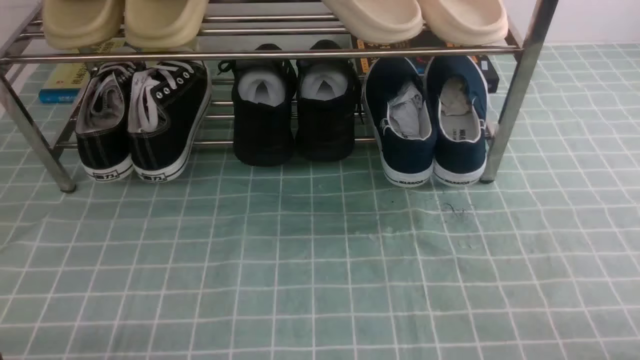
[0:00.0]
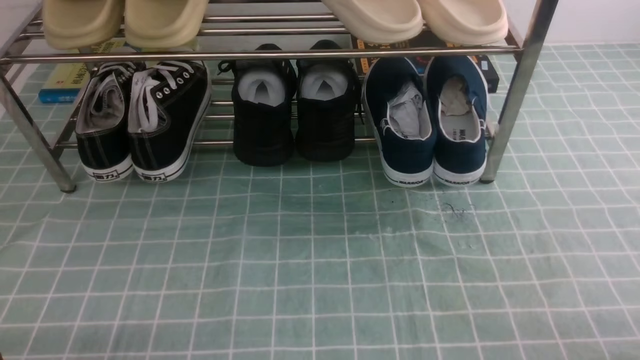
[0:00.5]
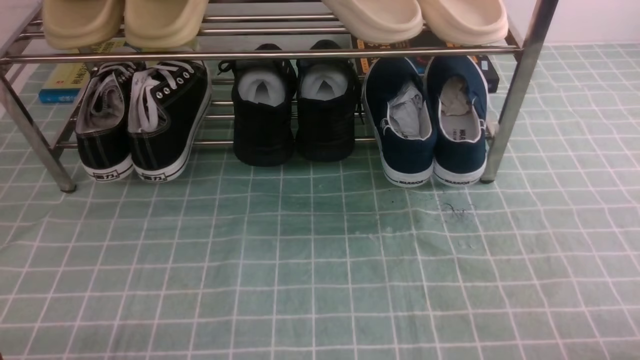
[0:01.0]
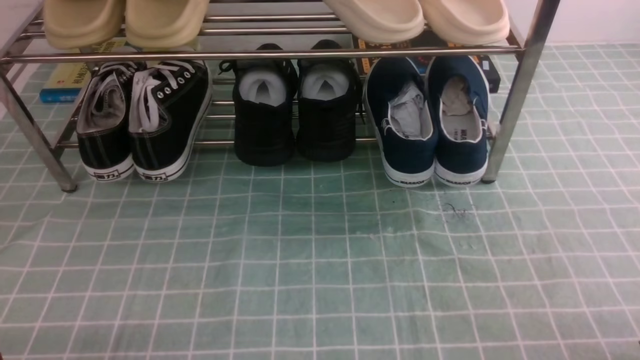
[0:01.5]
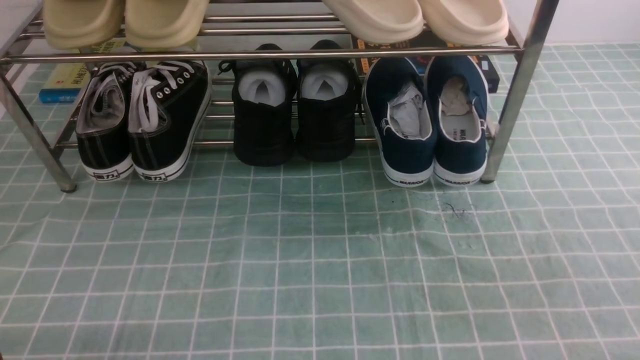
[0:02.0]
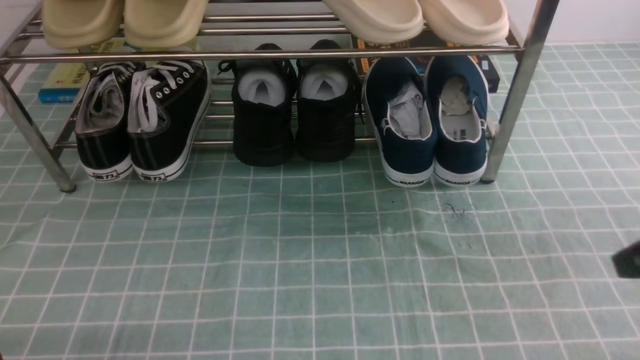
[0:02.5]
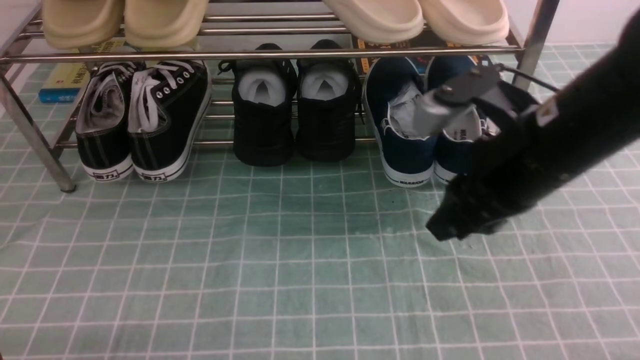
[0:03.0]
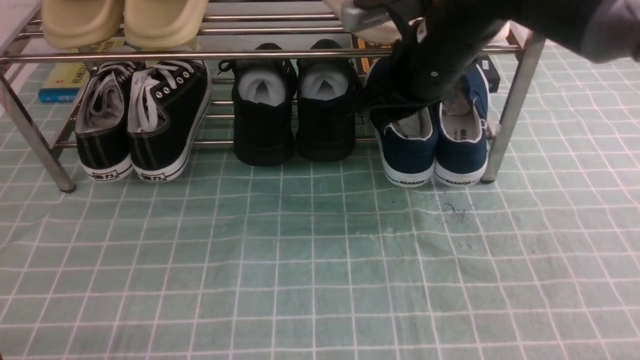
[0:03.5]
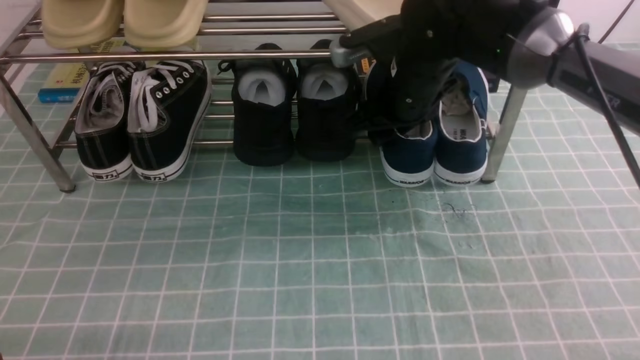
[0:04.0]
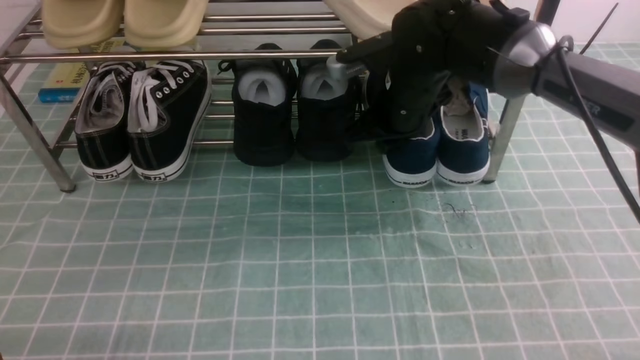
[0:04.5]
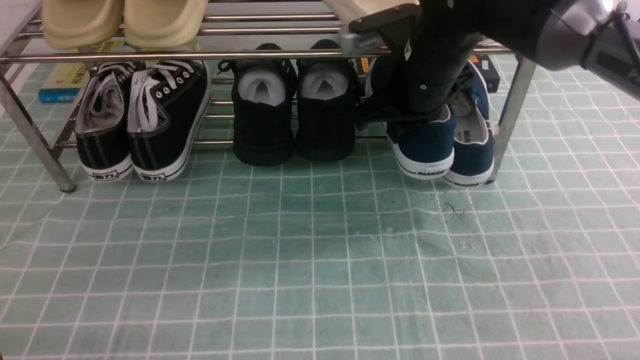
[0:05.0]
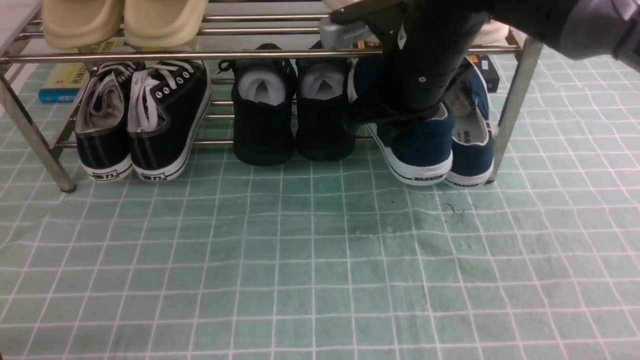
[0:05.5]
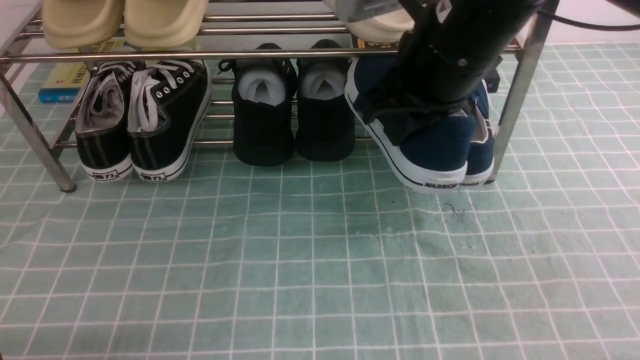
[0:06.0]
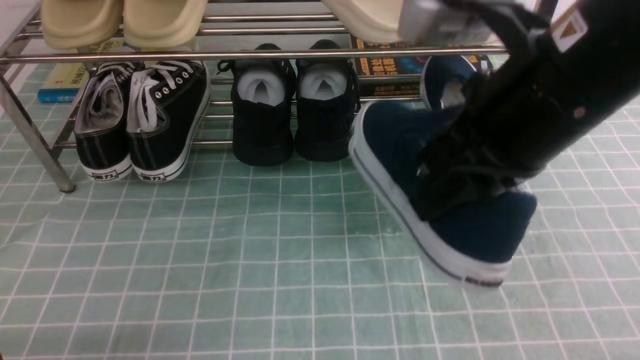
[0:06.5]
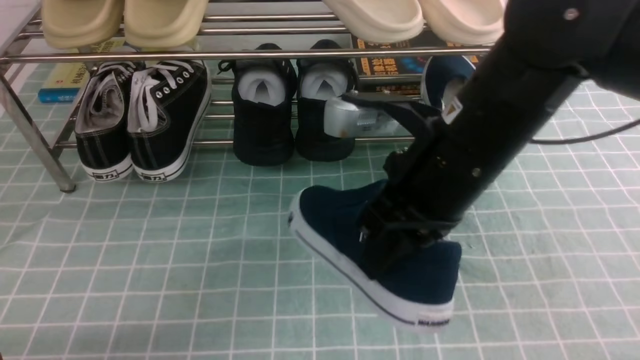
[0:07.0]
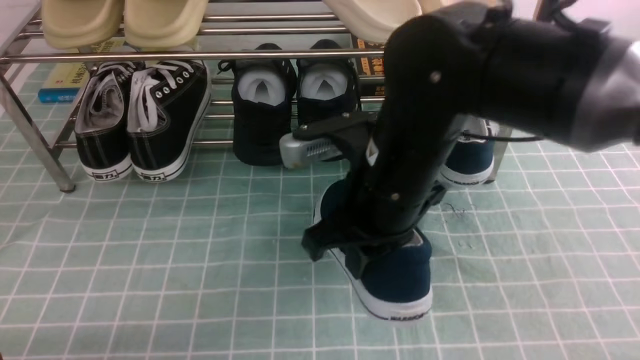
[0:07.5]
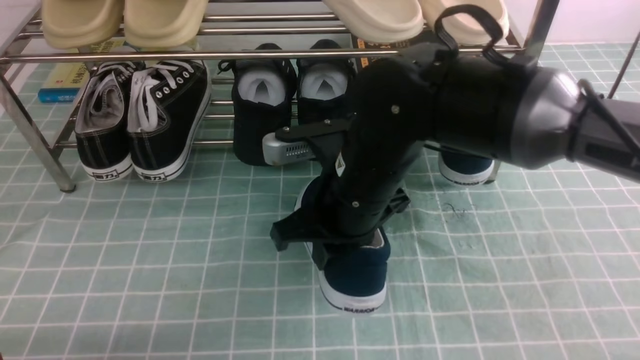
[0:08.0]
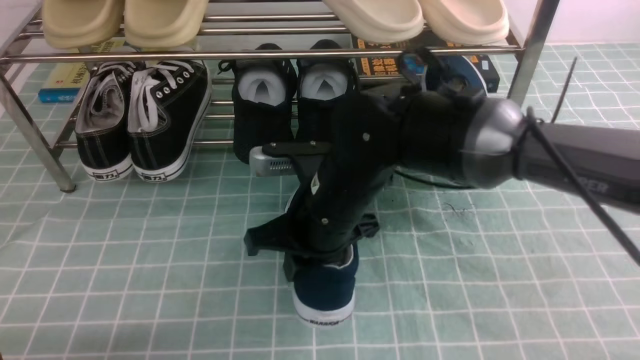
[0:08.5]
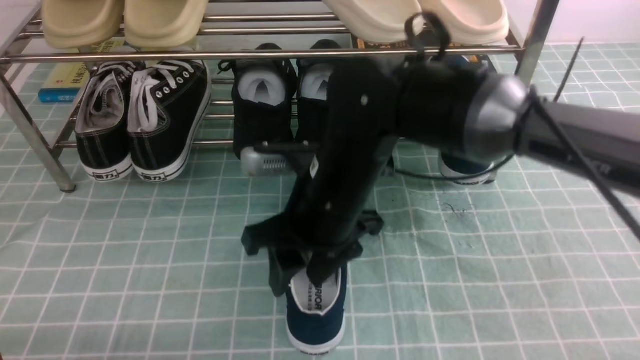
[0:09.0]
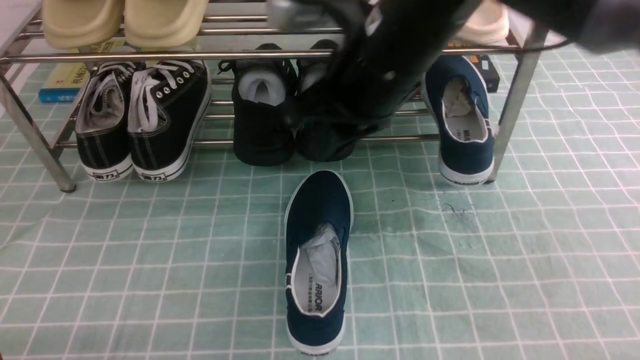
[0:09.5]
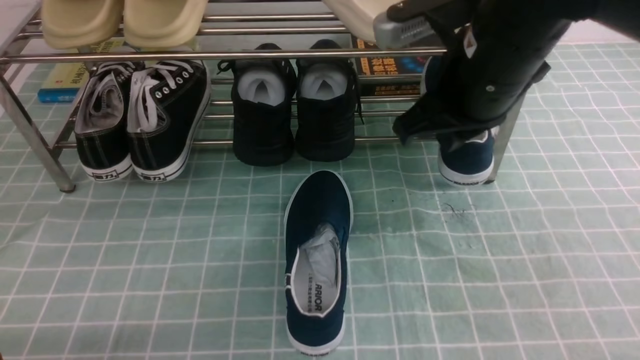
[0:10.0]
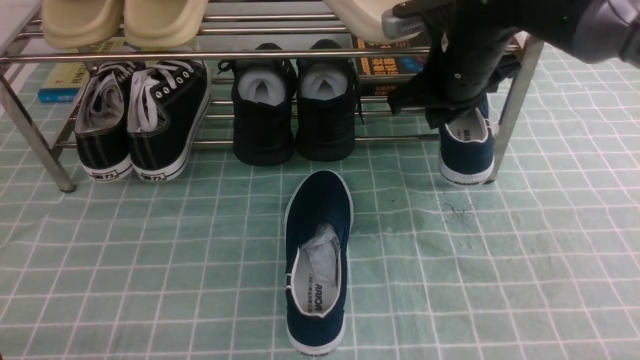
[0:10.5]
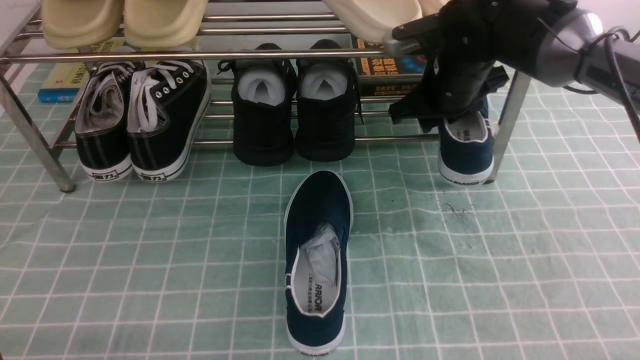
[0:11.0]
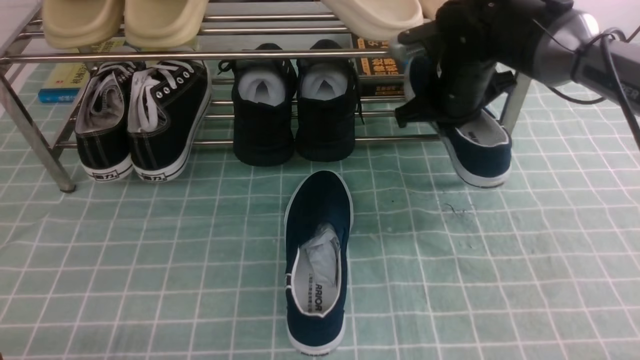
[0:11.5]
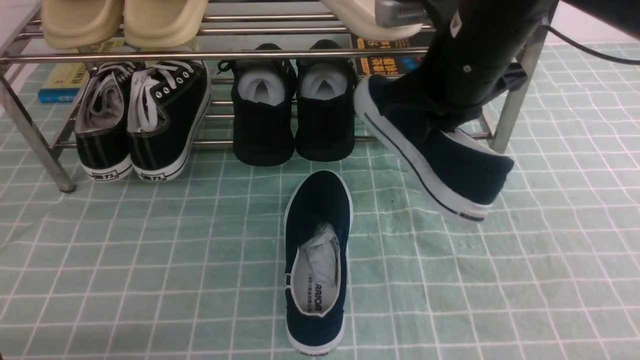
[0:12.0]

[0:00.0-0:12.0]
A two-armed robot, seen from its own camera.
Step, 0:00.0 to 0:04.5: use the right arm to clamp a shoe on the right side of the shoe rack.
Step, 0:05.0 to 0:09.0: use the right arm to take out the clamped shoe from the shoe rack and put it down.
Step, 0:09.5 to 0:11.0: use the right arm to clamp a shoe on the right side of the shoe rack.
0:02.0 to 0:04.0: The right gripper goes approximately 40 cm forward and to the left, and opens.
0:04.0 to 0:06.0: The right gripper moves backward and upward, some 15 cm, and closes.
0:06.0 to 0:08.0: The right gripper goes about 15 cm downward and to the left.
0:08.0 to 0:10.0: The right gripper travels to the right and upward by roughly 15 cm, and opens, then closes again.
0:10.0 to 0:12.0: The right gripper goes forward and returns, about 10 cm each way, and opens and closes again.

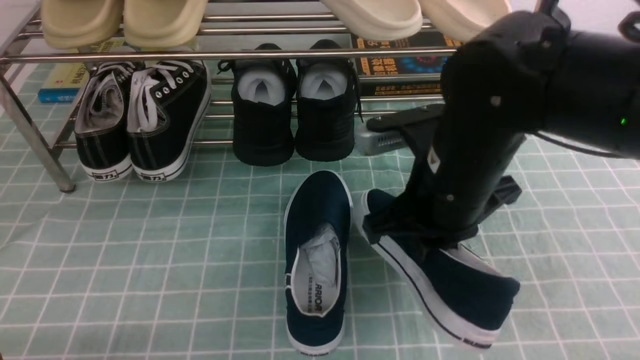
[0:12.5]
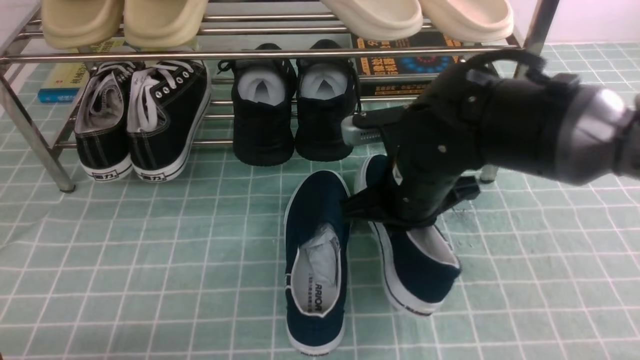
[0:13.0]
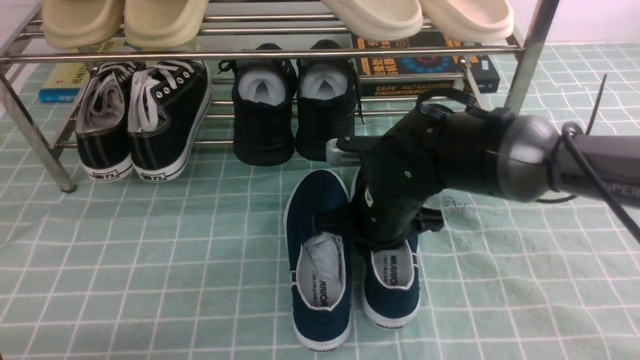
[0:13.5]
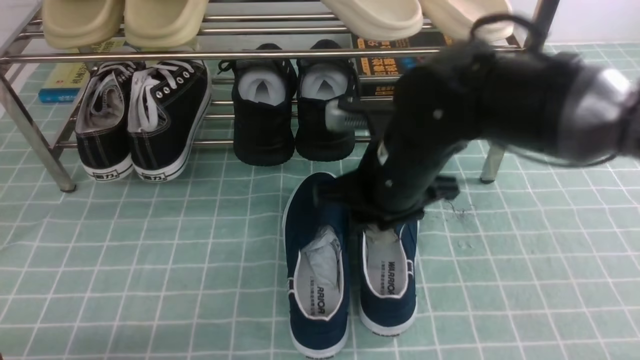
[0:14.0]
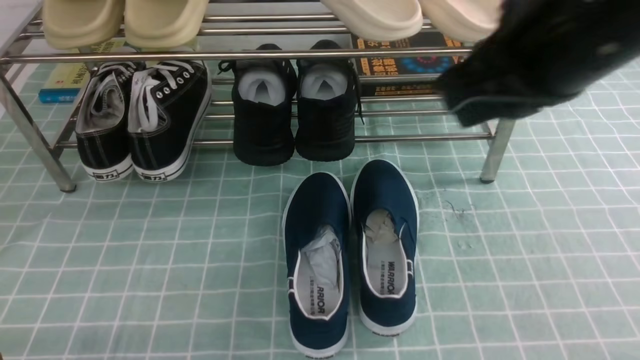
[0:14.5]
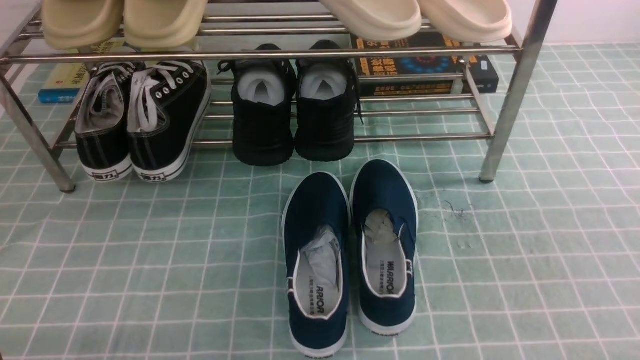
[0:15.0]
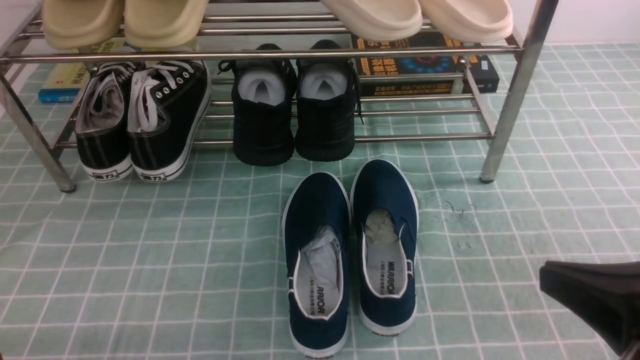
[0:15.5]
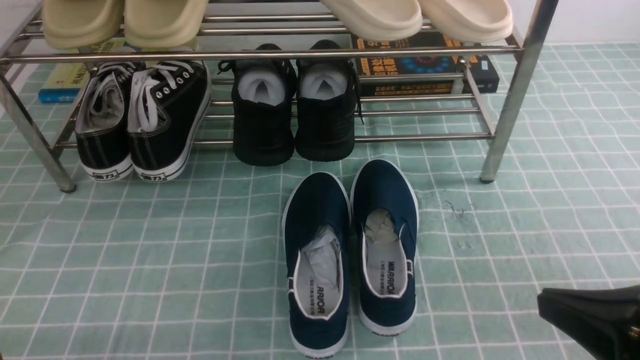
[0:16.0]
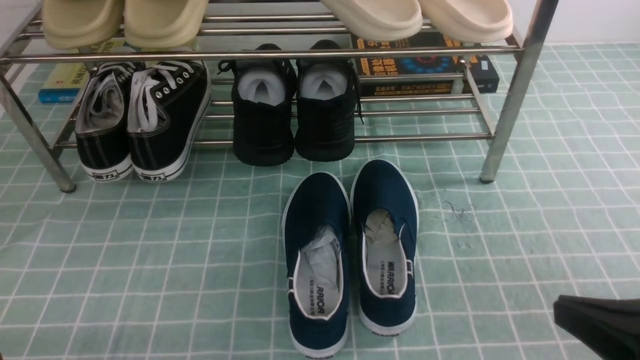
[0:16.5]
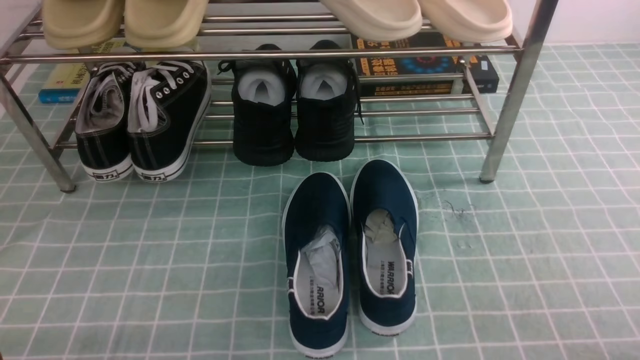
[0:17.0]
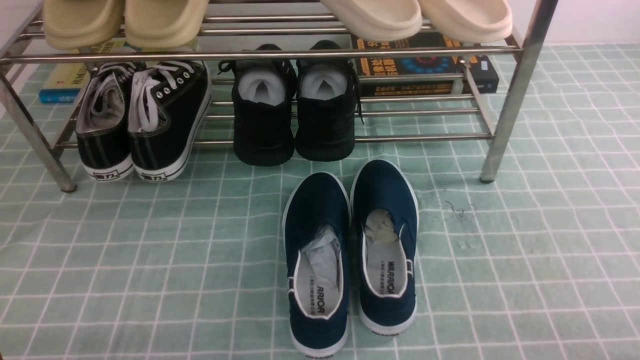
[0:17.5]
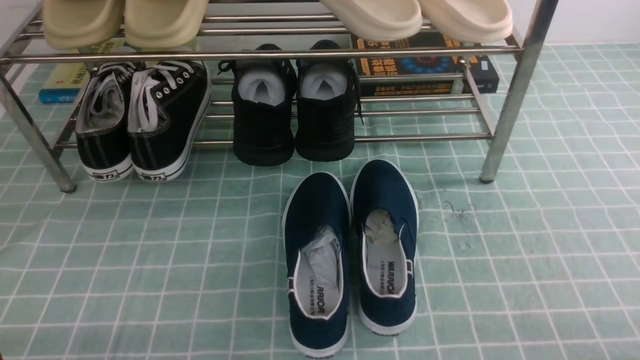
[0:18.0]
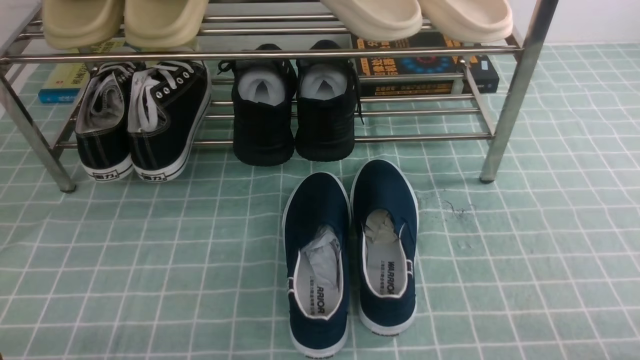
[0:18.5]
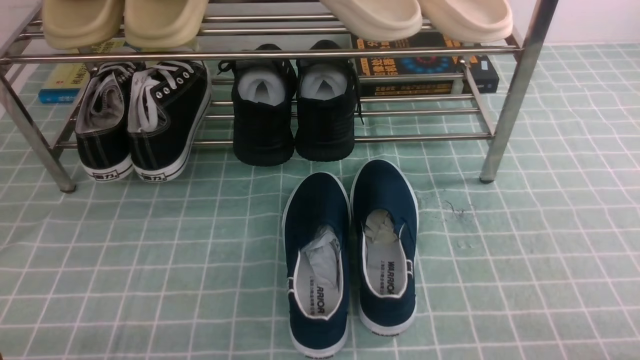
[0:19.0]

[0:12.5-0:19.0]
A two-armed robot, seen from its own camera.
0:12.5 to 0:14.5: The right gripper travels upward and backward by roughly 15 cm, and opens and closes again.
0:14.5 to 0:17.0: The right gripper moves downward, to the right and backward, some 30 cm.

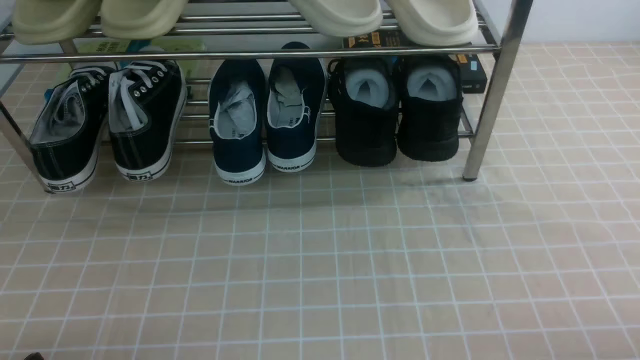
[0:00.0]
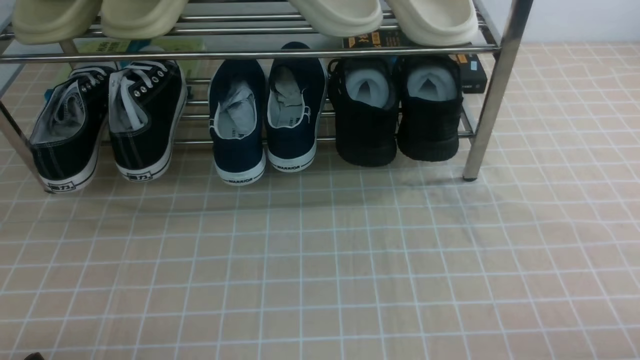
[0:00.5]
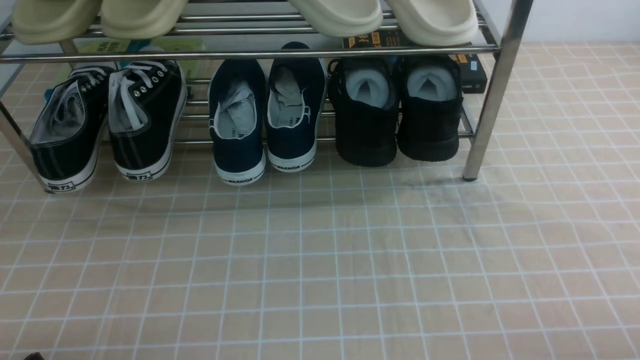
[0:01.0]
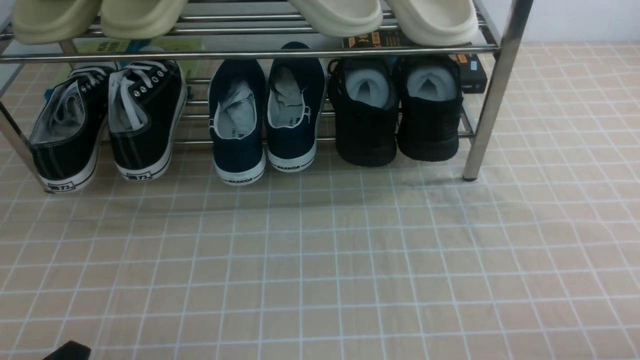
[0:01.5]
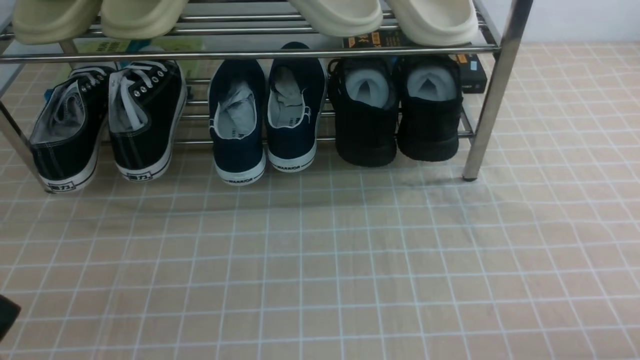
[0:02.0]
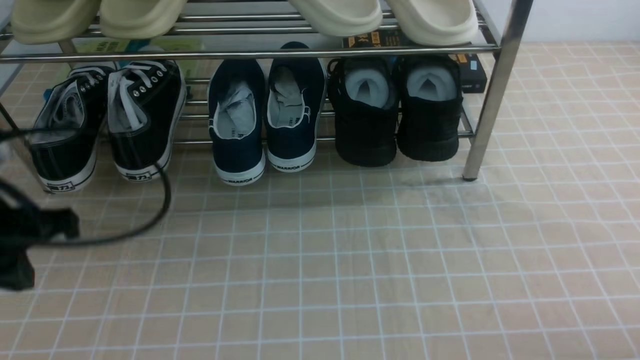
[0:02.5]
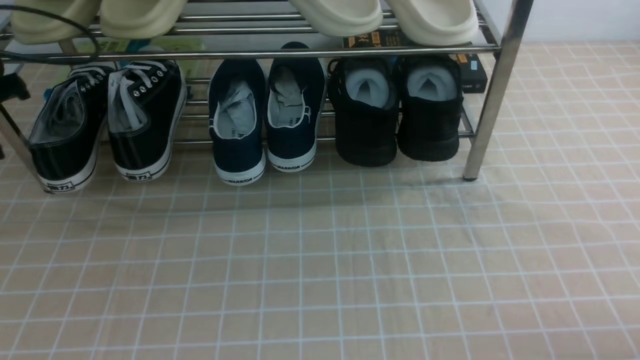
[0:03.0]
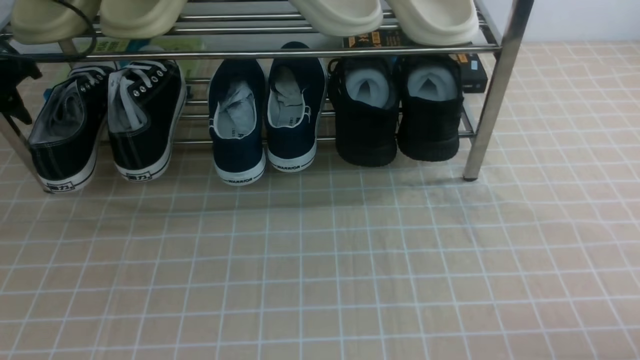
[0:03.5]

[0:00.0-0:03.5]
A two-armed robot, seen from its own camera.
0:02.0 to 0:03.5: The left gripper travels forward by approximately 30 cm, and opens up.
